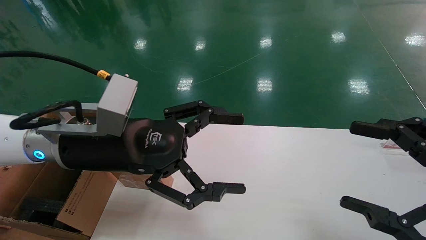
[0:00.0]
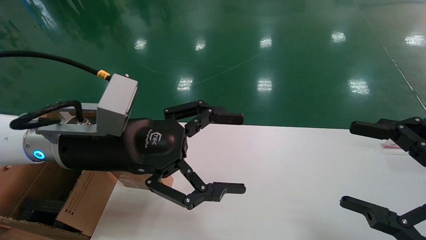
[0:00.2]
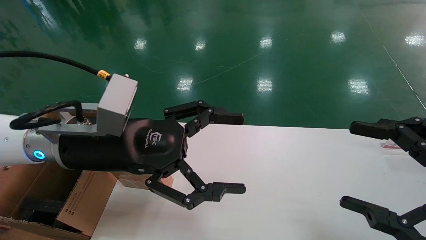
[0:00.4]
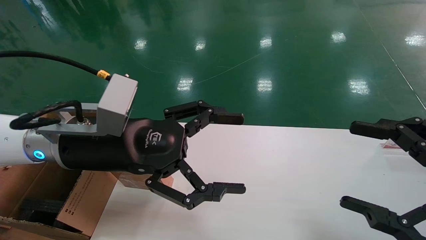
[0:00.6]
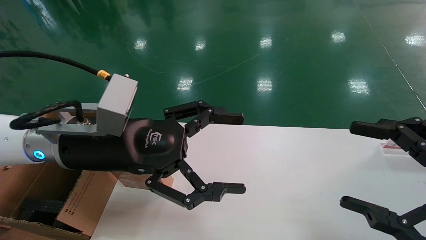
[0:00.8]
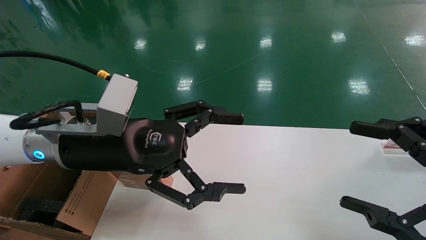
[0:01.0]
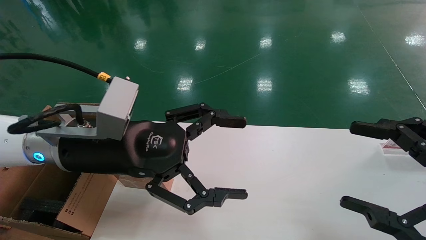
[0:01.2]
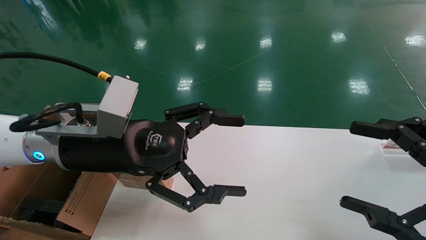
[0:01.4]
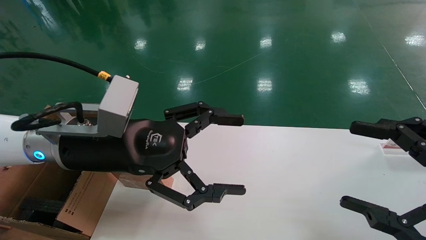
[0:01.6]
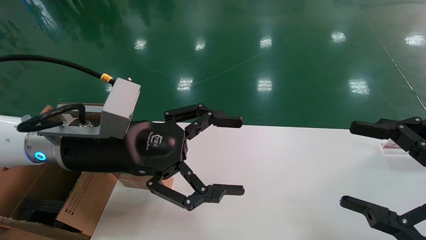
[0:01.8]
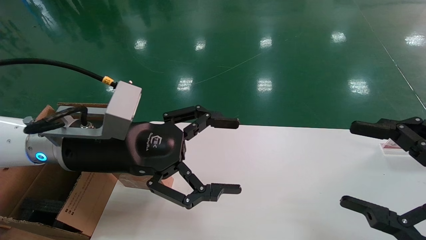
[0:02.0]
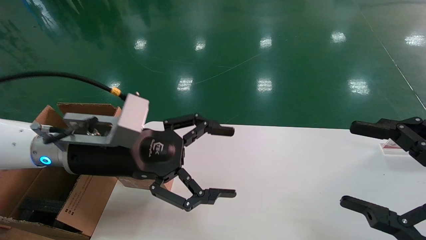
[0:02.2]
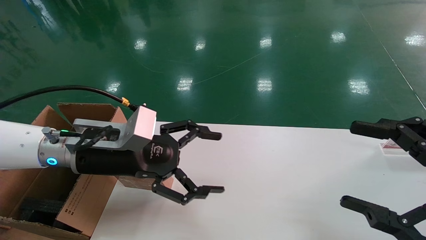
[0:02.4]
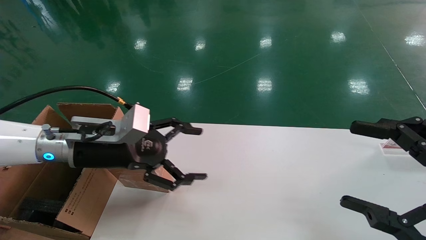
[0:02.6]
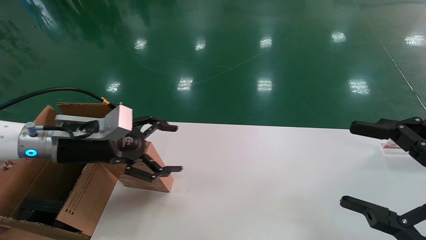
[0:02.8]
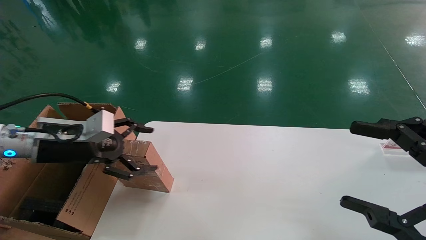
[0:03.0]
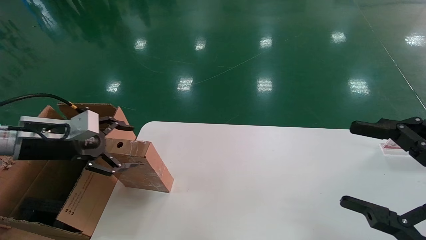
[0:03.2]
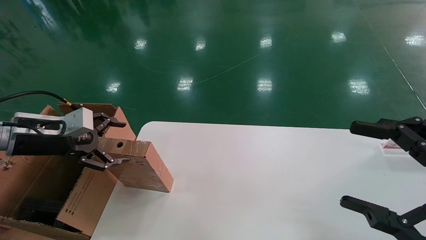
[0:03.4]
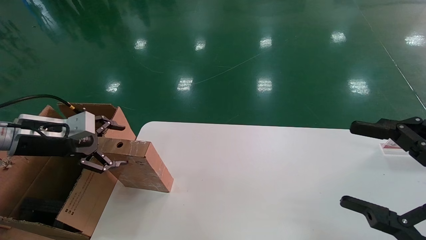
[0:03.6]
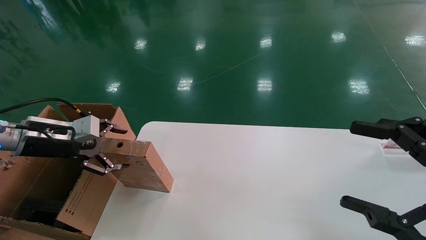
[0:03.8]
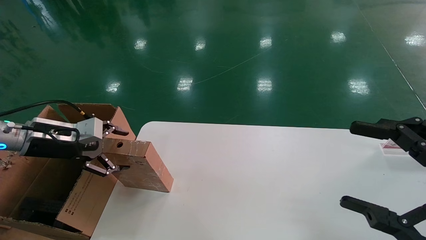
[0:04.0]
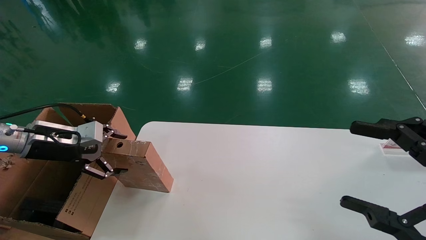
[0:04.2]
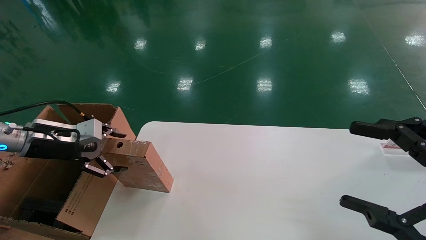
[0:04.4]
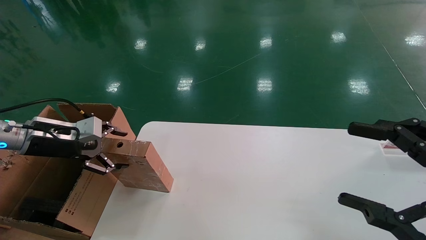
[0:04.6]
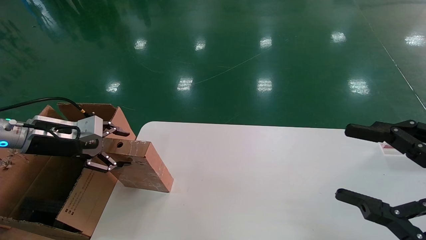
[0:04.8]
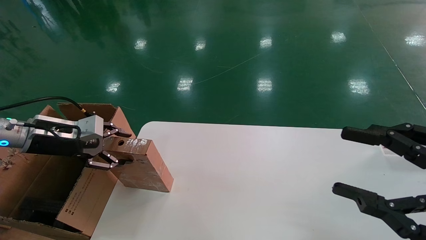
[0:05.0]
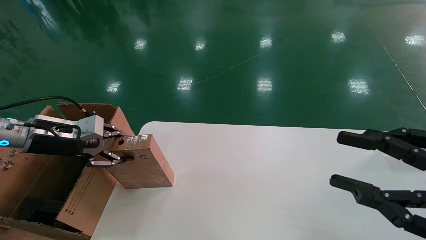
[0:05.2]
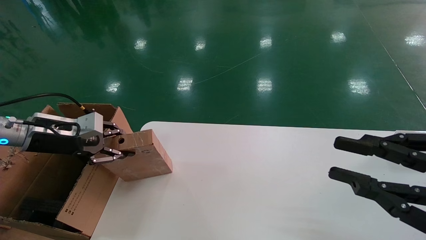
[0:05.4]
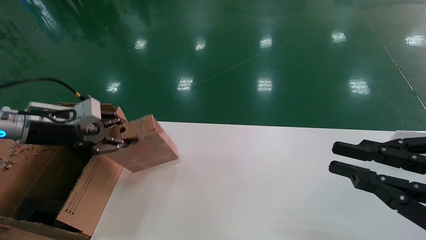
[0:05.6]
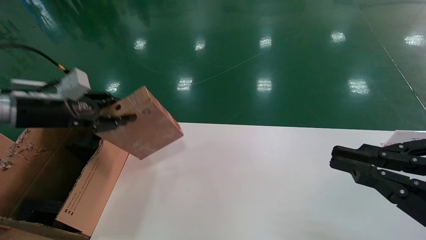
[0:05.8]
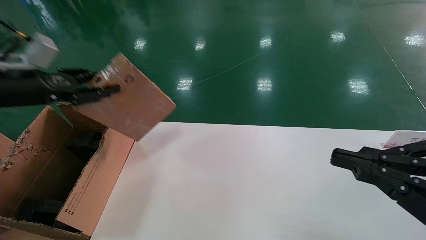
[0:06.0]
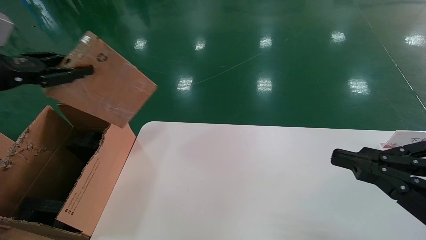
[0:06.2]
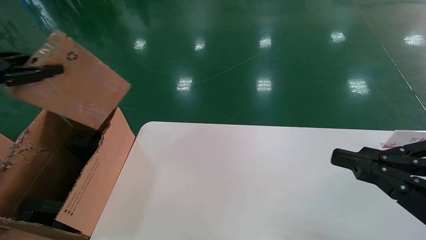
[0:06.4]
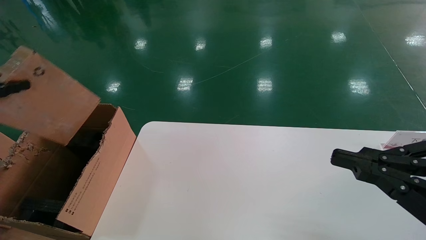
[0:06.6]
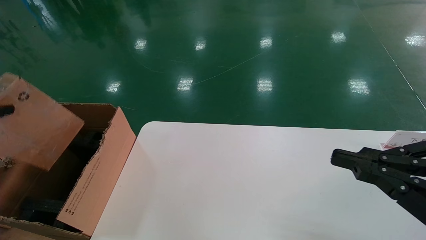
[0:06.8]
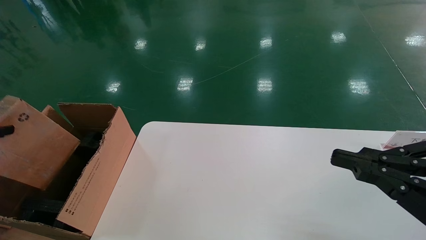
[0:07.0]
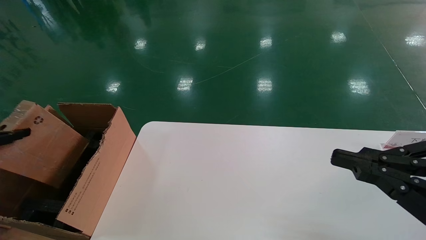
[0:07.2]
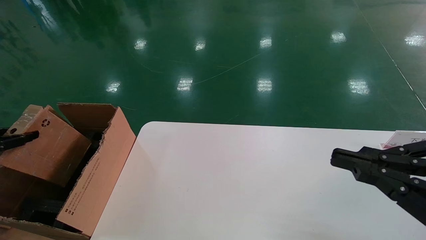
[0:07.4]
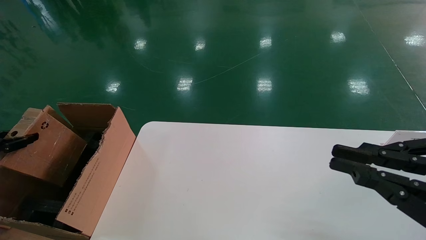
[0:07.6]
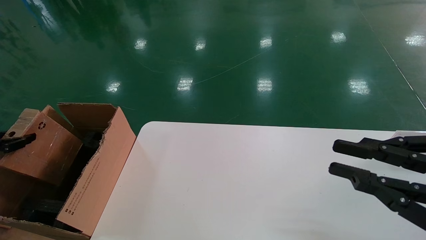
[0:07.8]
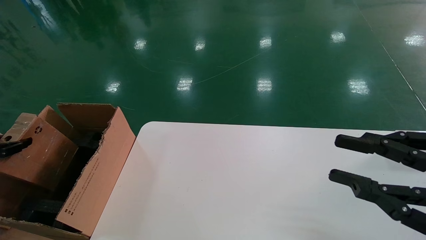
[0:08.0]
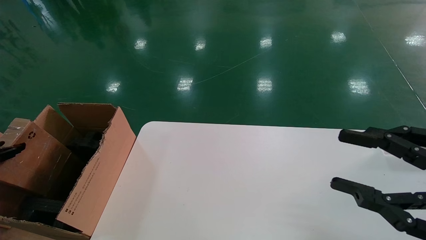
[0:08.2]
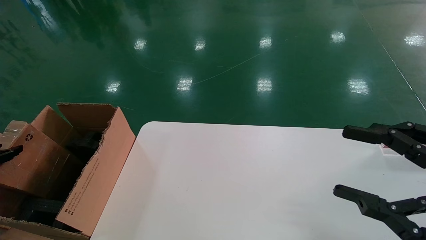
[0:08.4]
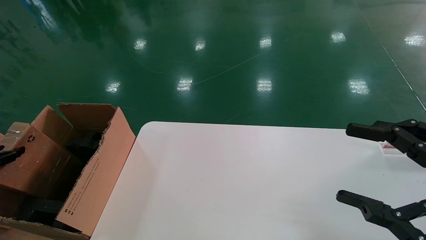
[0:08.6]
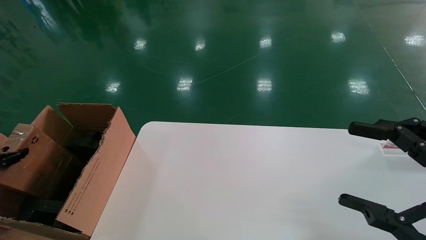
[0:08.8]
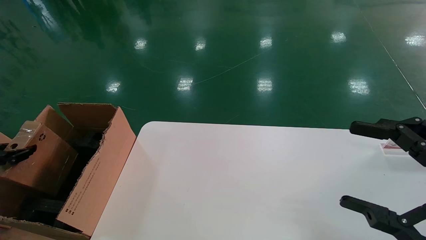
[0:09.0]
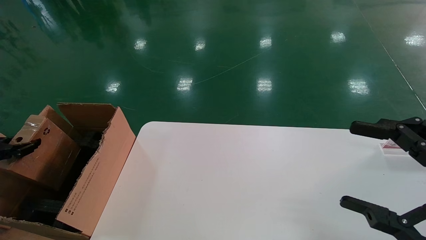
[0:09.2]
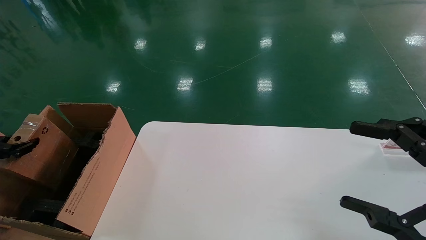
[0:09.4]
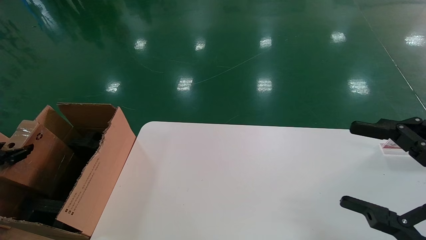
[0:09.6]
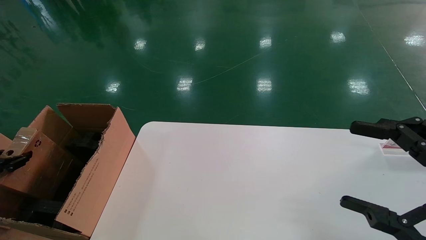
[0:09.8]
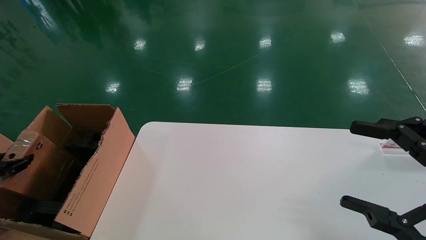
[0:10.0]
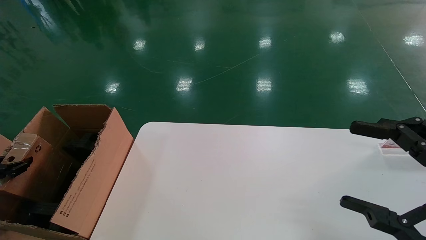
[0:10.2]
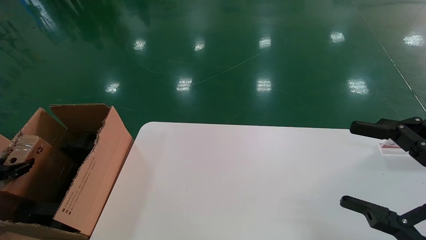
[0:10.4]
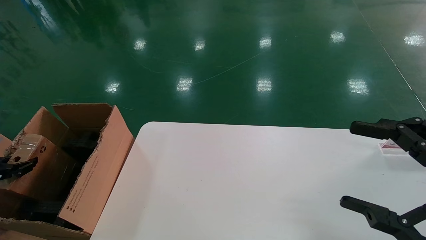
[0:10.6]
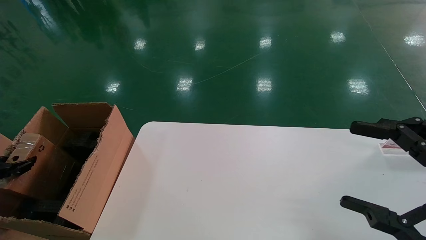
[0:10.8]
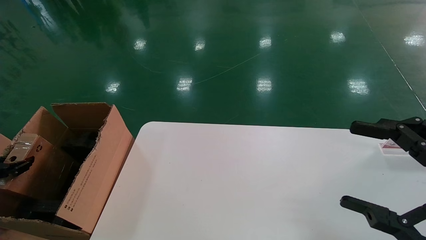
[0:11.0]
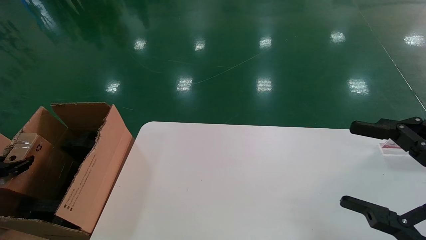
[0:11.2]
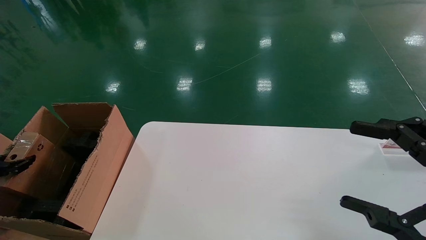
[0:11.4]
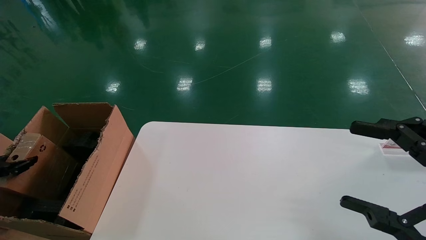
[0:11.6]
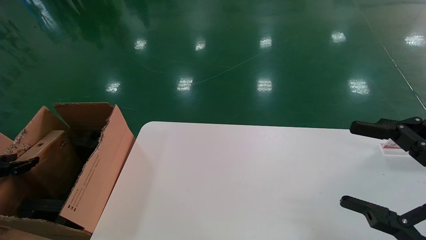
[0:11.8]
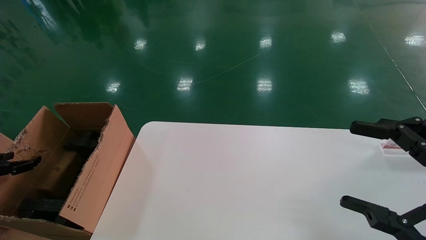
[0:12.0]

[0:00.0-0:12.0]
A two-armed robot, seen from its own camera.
Task of the whole recording: put the box on the table into the big box.
Step, 0:02.2 to 0:05.6: Pick up the mouse and the power cord paper box.
Step, 0:05.8 to 0:12.0: Place the mouse and the power cord paper box into the container.
0:00.0 to 0:01.6: Neither gripper changes place.
0:01.6 to 0:03.0: The left gripper heads to the left, covering about 15 cm.
0:03.0 to 0:04.4: The left gripper moves to the left, roughly 5 cm.
0:04.4 to 0:06.0: The left gripper shifts approximately 10 cm upward, and closes up; the right gripper closes its fingers.
0:06.0 to 0:07.6: The left gripper heads to the left, downward and backward, covering some 20 cm.
0:07.6 to 0:09.0: The right gripper opens up.
0:09.0 to 0:10.4: The left gripper goes approximately 5 cm downward.
0:10.4 to 0:12.0: The left gripper opens its fingers.

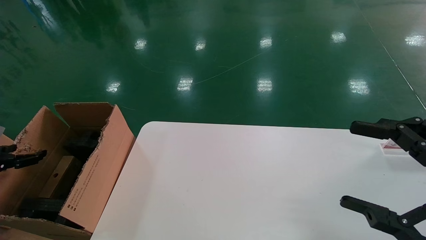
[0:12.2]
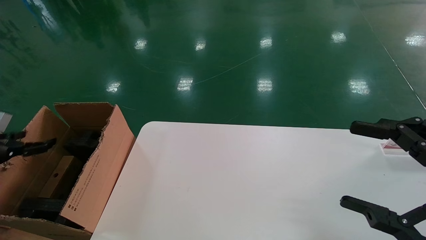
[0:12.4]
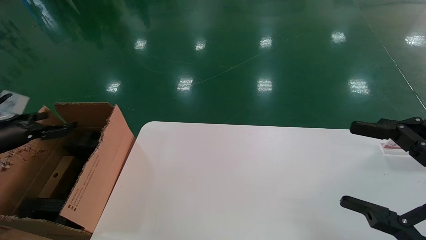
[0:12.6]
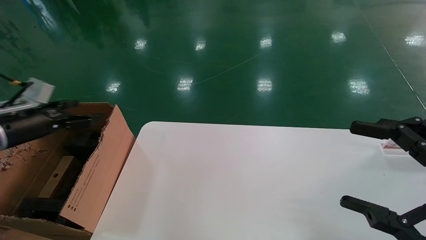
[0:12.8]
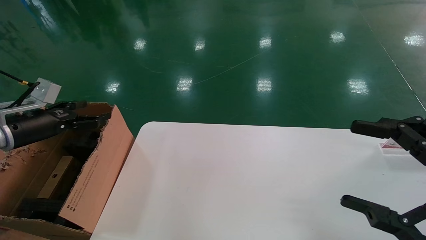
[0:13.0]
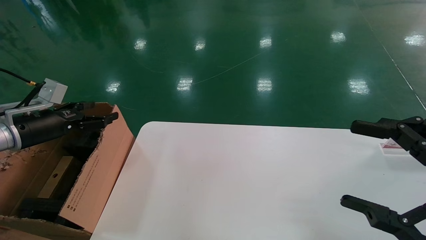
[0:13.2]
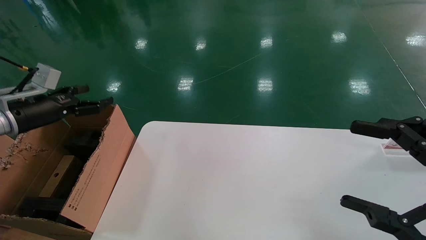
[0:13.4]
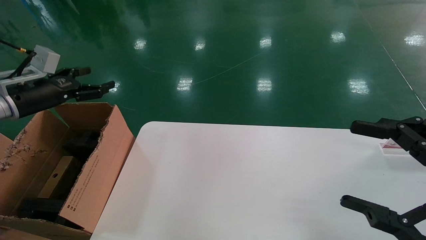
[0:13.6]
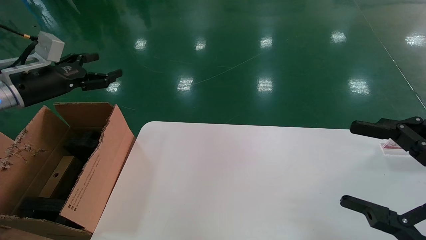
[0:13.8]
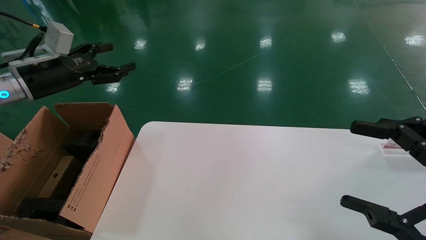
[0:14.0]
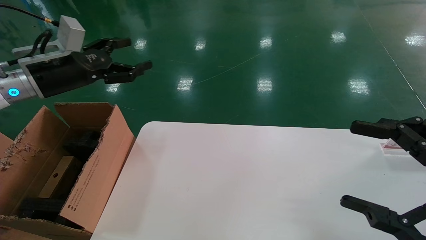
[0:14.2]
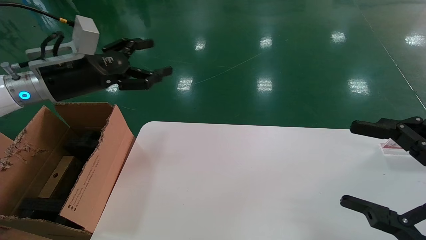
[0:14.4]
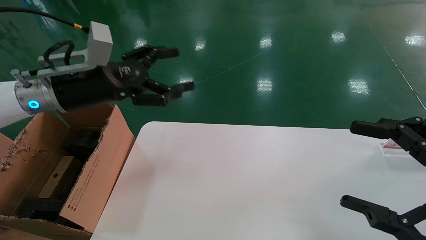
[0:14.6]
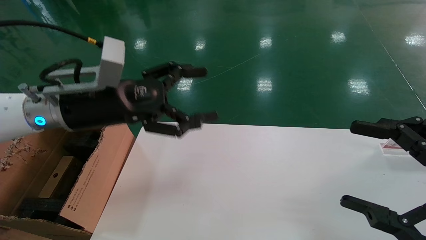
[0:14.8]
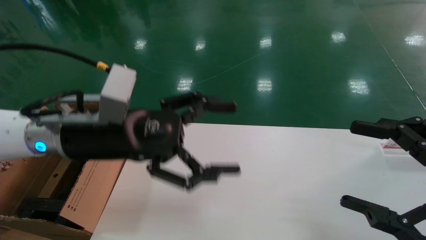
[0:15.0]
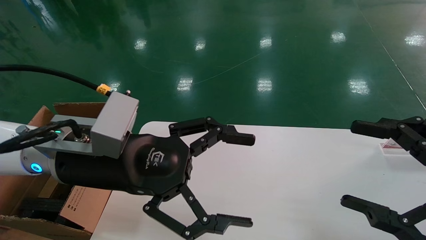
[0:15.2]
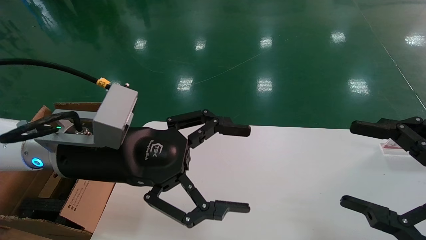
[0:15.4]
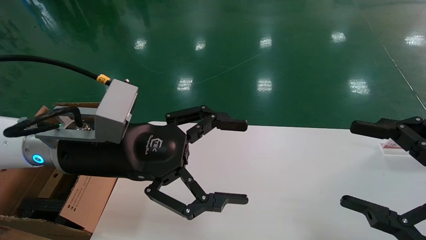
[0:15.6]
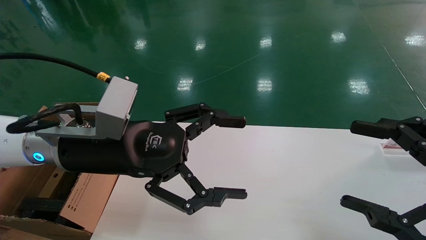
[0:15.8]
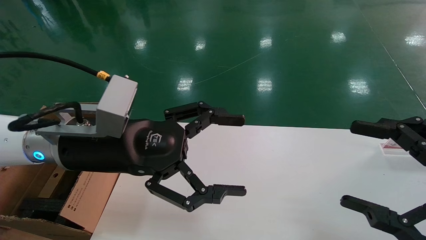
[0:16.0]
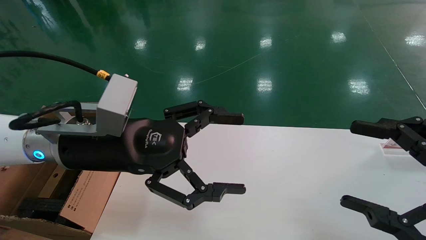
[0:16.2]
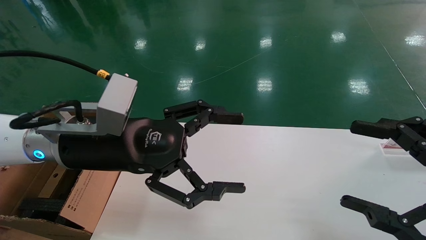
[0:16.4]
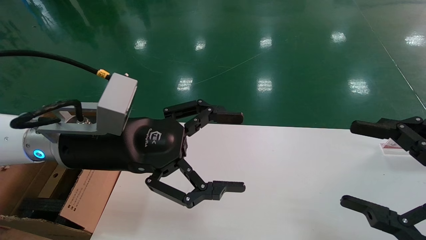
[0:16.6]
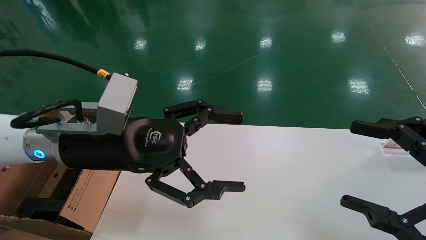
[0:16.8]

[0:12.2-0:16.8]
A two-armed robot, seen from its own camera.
Task of the whole recording: put the box on the table into the big box.
0:12.2 to 0:13.8: The left gripper goes roughly 25 cm upward, to the right and forward.
0:13.8 to 0:15.2: The left gripper travels to the right by approximately 30 cm.
0:15.2 to 0:16.8: Both grippers stay put.
